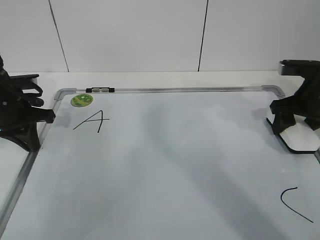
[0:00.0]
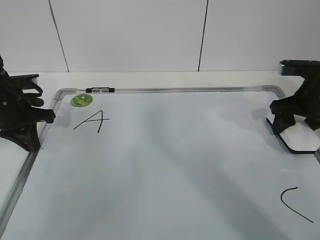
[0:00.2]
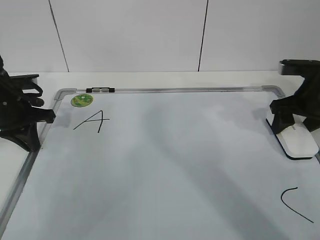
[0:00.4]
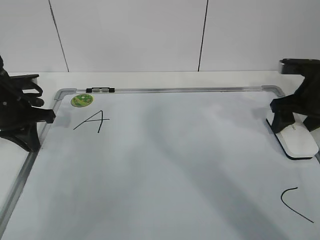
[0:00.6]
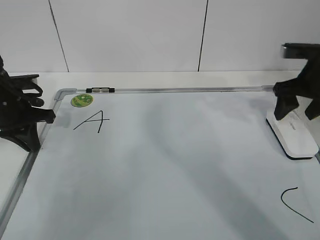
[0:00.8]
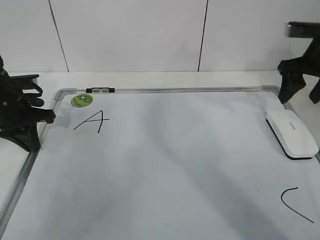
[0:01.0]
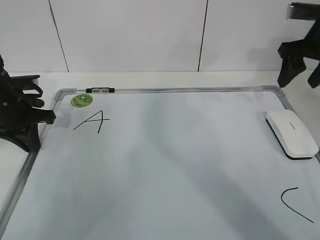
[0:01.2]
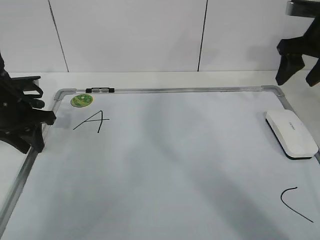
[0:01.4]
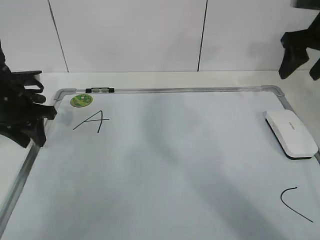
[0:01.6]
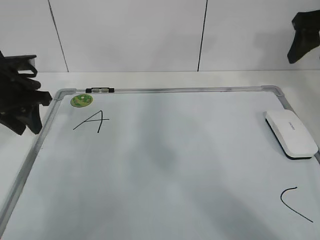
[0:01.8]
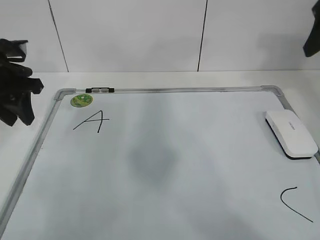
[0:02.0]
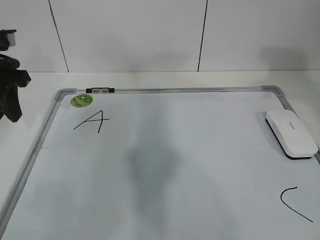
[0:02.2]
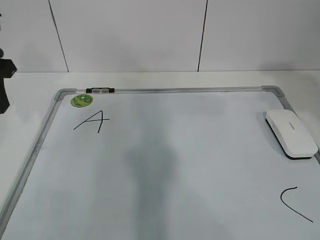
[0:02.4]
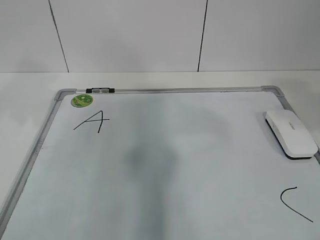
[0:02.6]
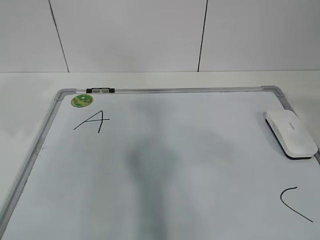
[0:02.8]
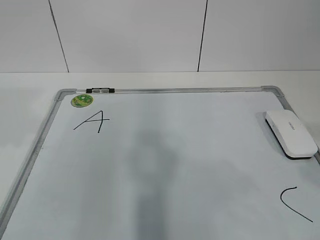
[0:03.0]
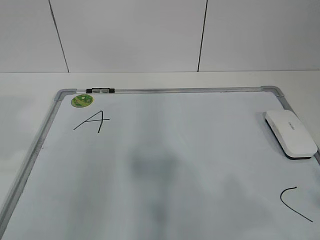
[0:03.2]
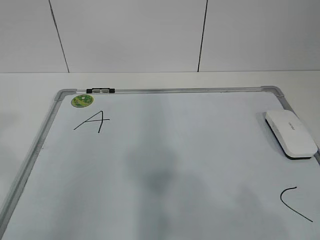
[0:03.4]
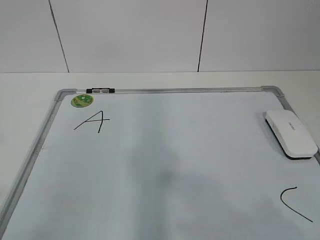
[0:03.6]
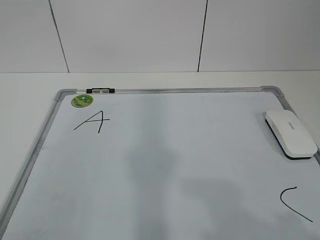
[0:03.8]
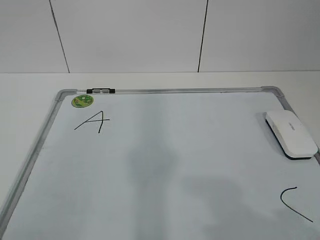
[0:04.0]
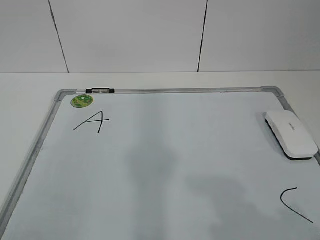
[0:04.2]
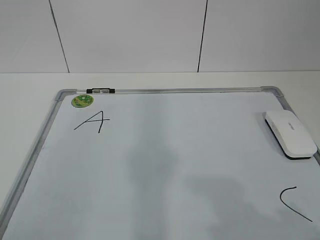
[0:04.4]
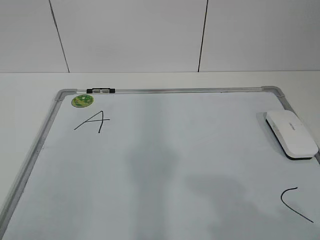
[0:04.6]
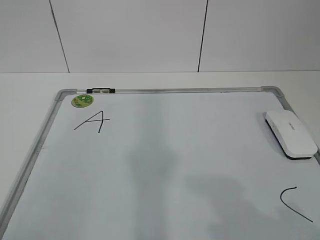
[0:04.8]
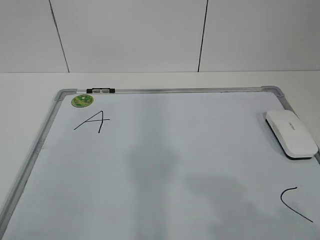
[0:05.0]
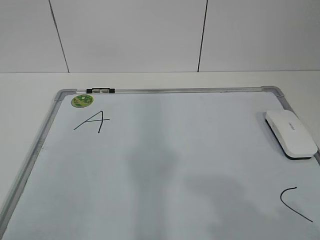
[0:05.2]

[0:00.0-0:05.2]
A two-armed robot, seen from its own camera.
Task of the whole recording: pick up the eraser on the blackboard and erase the letter "B".
0:00.0 to 0:01.8: The left gripper opens its fingers, while the right gripper heads upward, covering some 15 cm.
0:01.8 to 0:03.4: The right gripper goes approximately 40 cm backward, while the left gripper travels backward and upward by roughly 30 cm.
